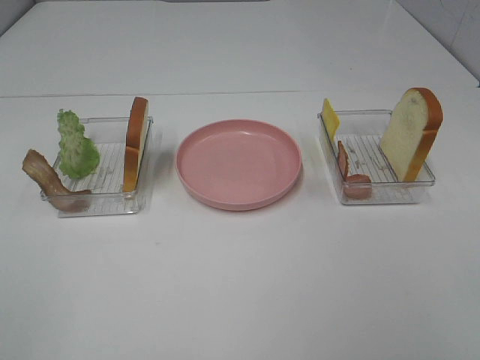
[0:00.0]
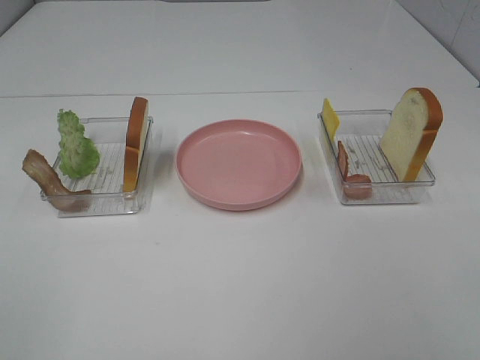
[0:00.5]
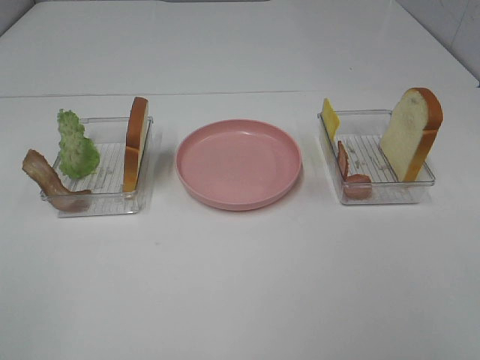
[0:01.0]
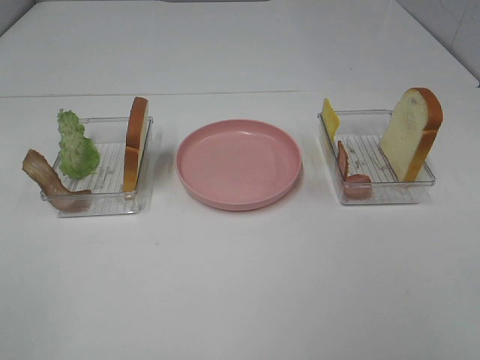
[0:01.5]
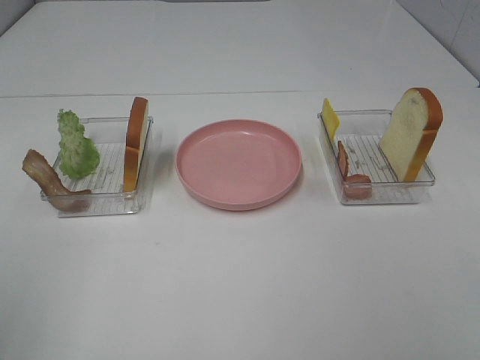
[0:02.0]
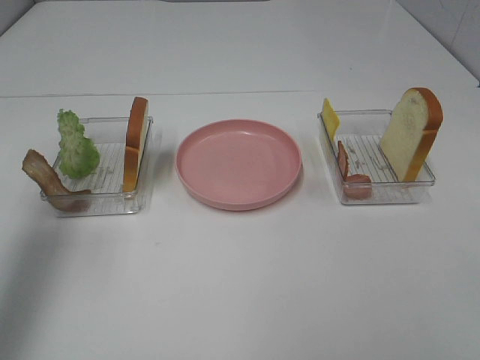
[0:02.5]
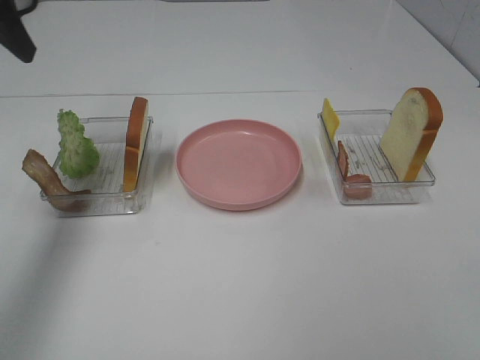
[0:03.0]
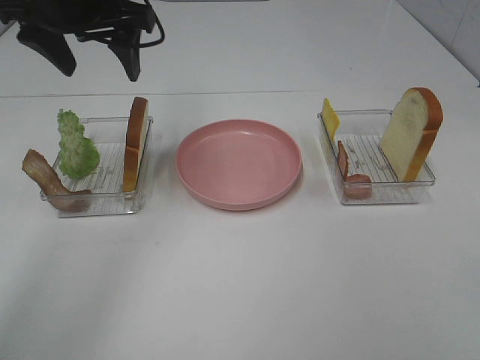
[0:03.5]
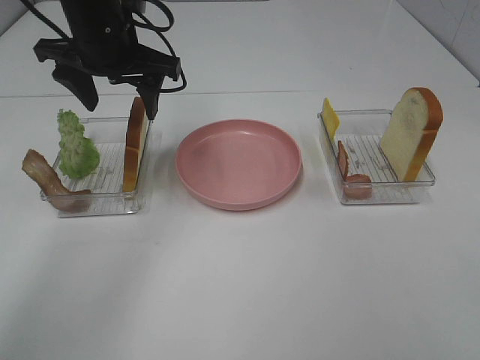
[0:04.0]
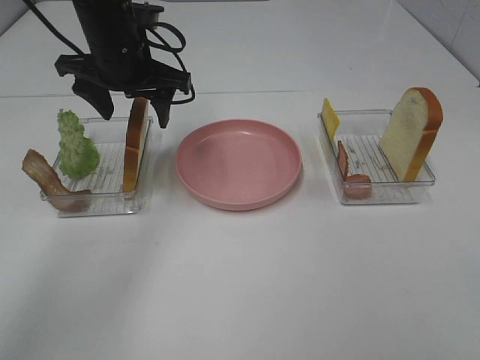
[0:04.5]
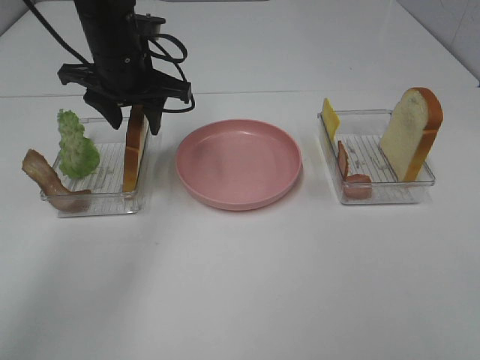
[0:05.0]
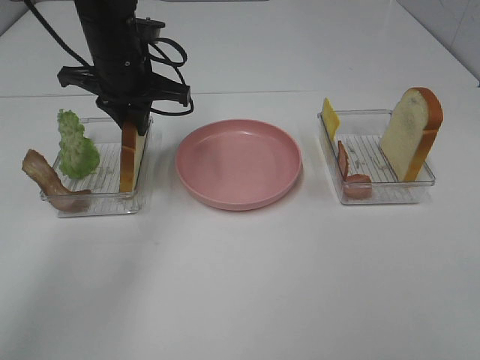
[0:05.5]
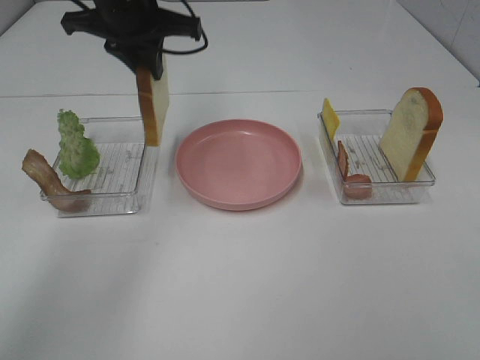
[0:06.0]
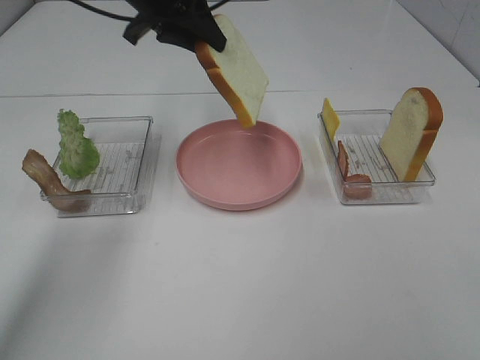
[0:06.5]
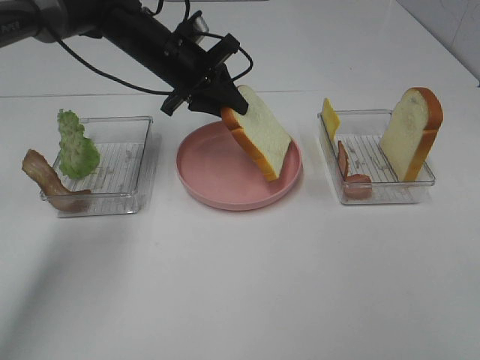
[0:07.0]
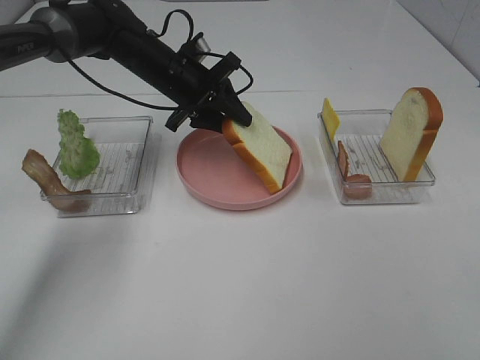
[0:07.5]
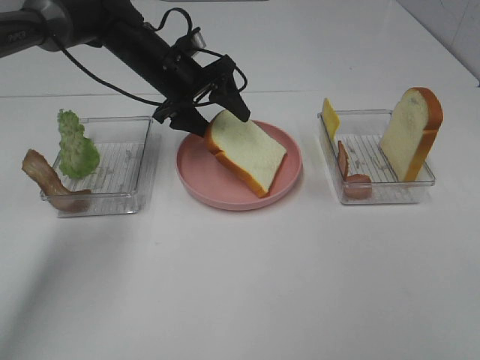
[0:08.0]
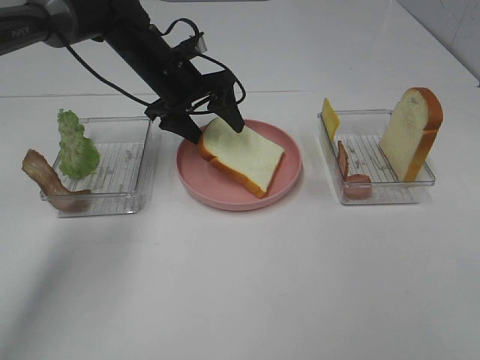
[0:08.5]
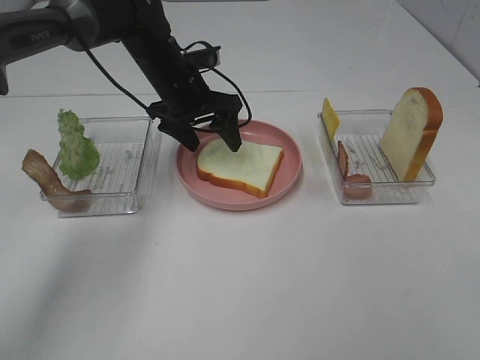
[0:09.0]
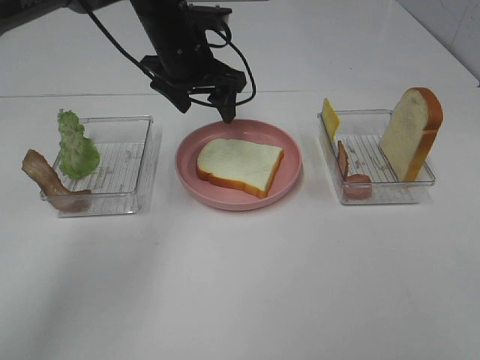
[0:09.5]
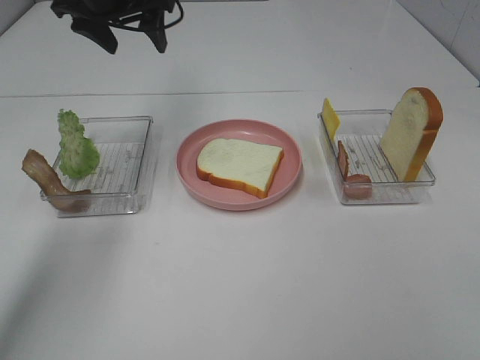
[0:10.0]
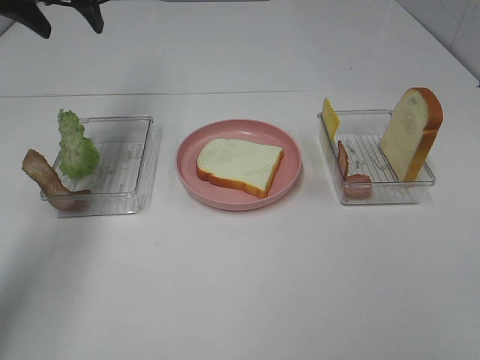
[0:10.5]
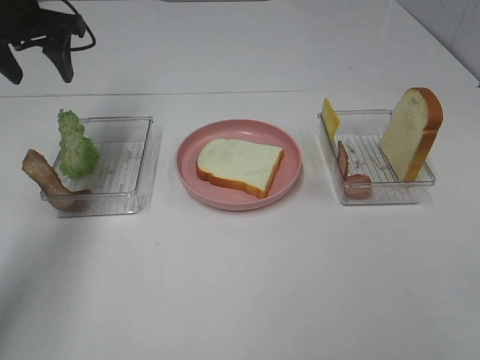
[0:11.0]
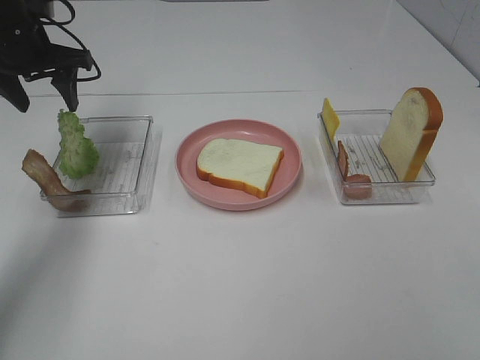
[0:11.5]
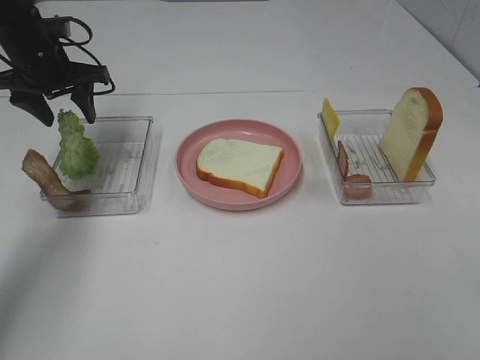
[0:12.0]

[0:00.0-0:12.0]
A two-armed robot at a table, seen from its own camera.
Task of the whole recording: Make sandwiches.
Step, 0:00.0 to 0:05.0: Left hand:grab the bread slice.
Step, 0:05.5 to 0:09.0: Left hand:place the bread slice on the plate.
0:02.0 to 0:04.0: The left gripper travels forward and to the right by about 40 cm.
0:04.0 to 0:06.0: The left gripper closes.
0:06.0 to 0:08.0: The left gripper heads downward, covering roughly 15 cm, and opens its fingers.
0:08.0 to 0:10.0: The left gripper heads upward and to the left, covering roughly 15 cm.
0:10.0 to 0:12.0: The left gripper shifts approximately 15 cm downward and to the left.

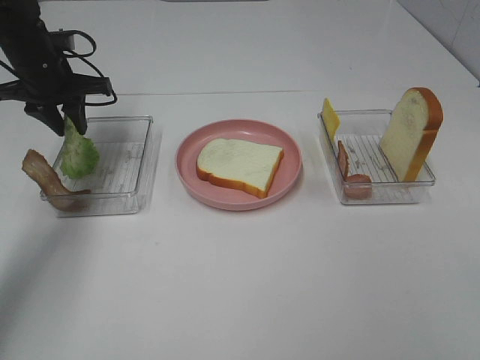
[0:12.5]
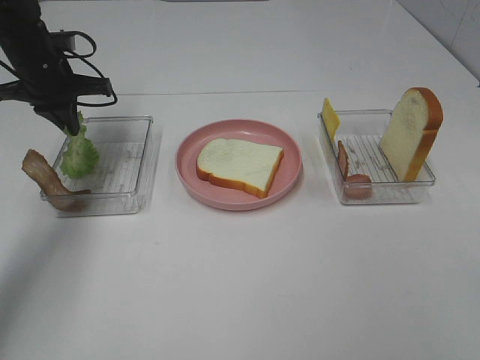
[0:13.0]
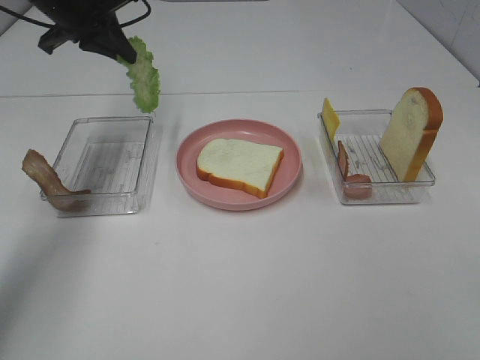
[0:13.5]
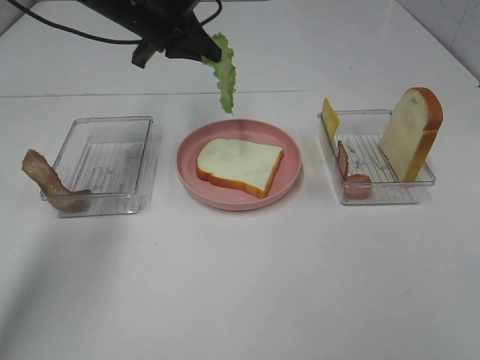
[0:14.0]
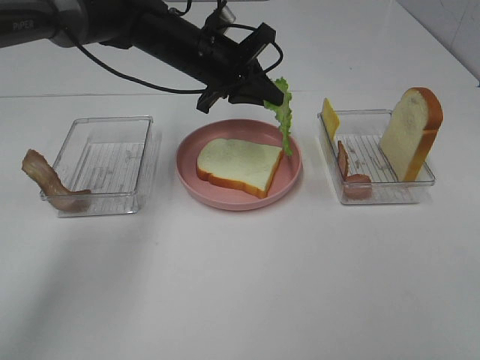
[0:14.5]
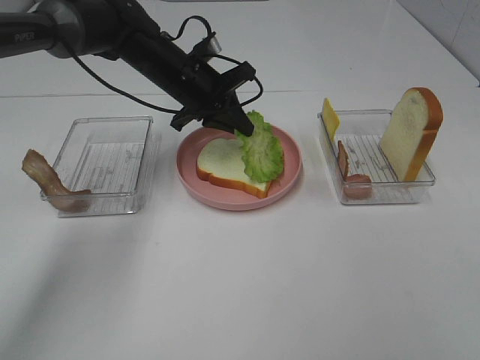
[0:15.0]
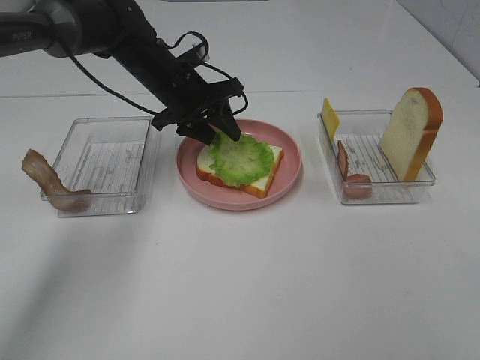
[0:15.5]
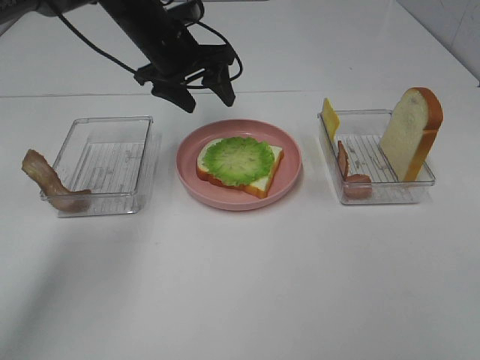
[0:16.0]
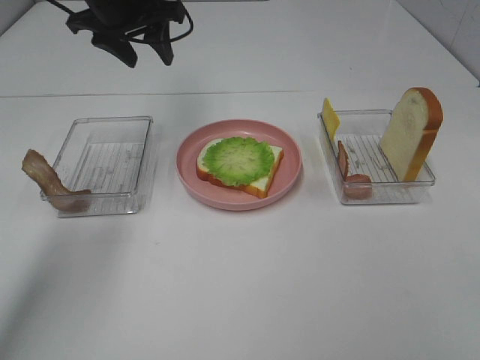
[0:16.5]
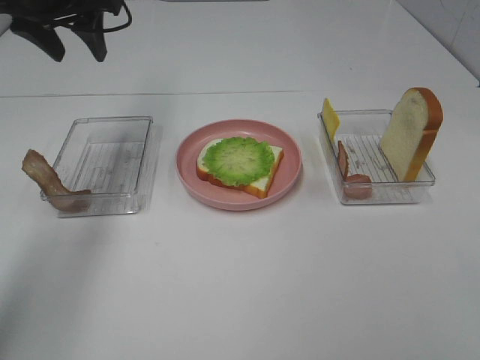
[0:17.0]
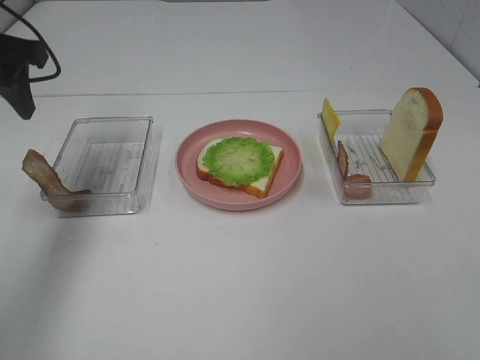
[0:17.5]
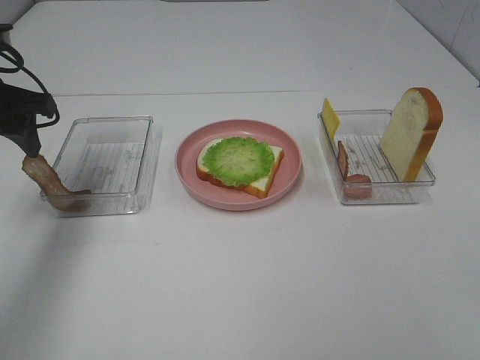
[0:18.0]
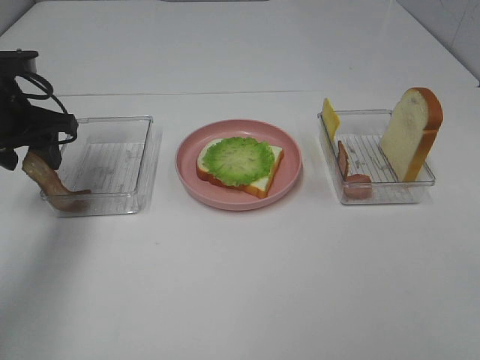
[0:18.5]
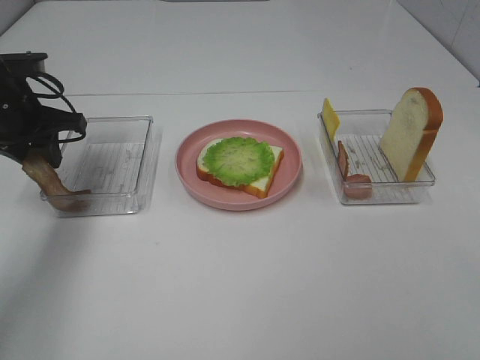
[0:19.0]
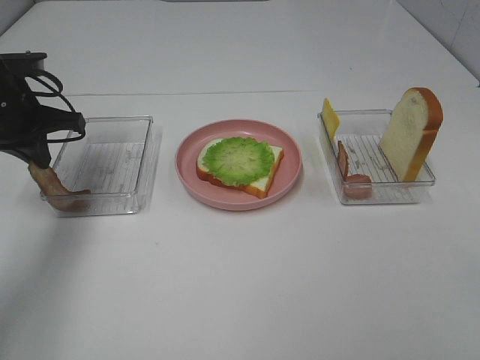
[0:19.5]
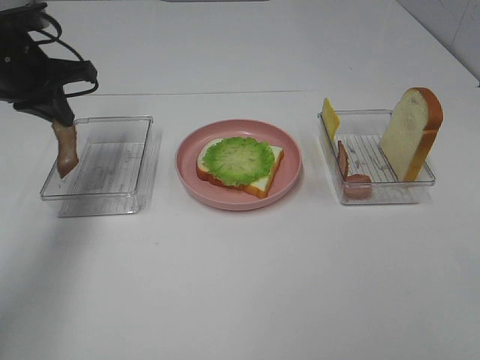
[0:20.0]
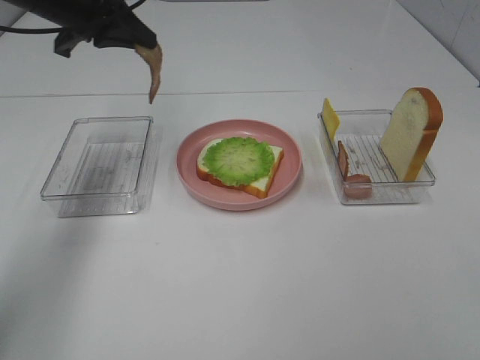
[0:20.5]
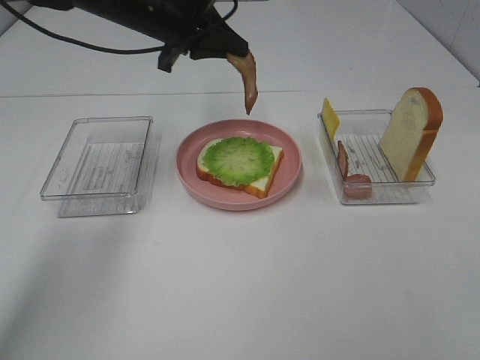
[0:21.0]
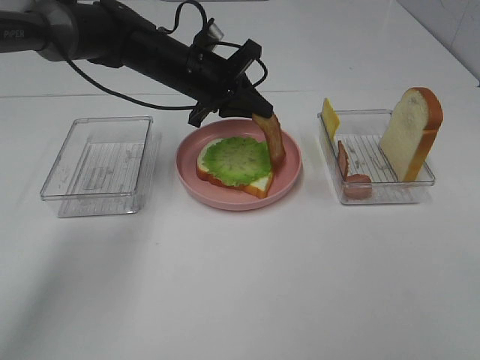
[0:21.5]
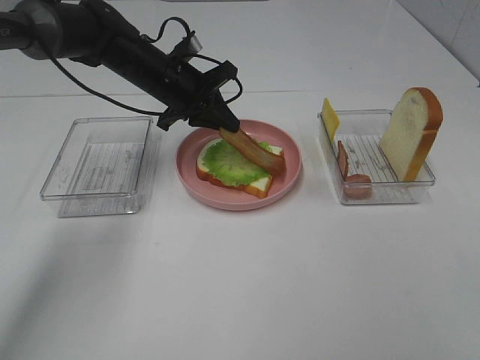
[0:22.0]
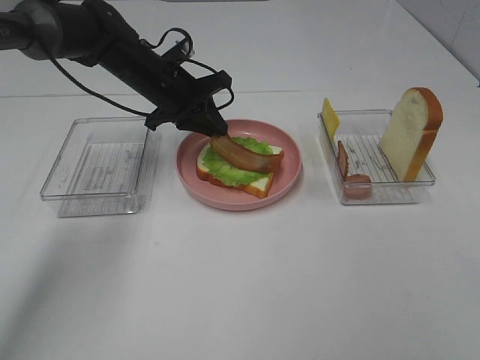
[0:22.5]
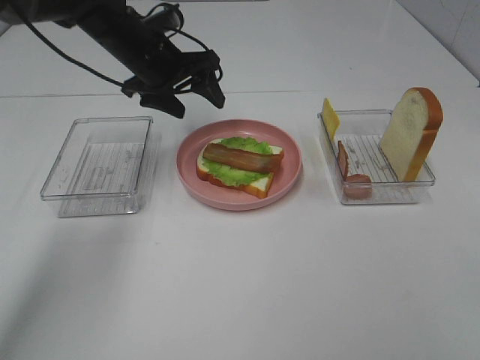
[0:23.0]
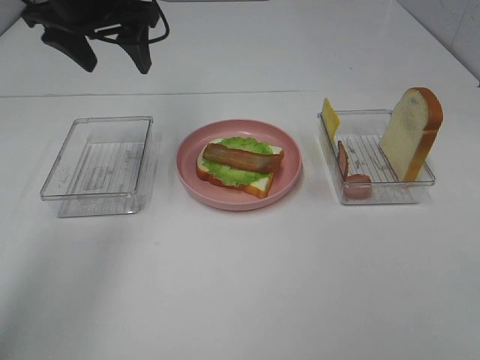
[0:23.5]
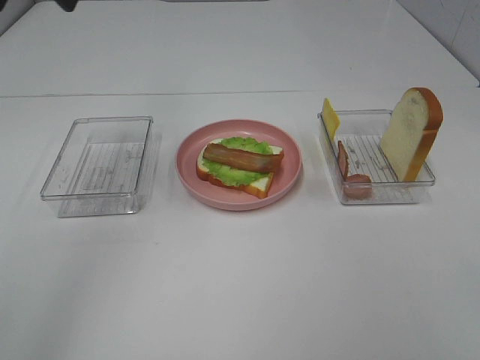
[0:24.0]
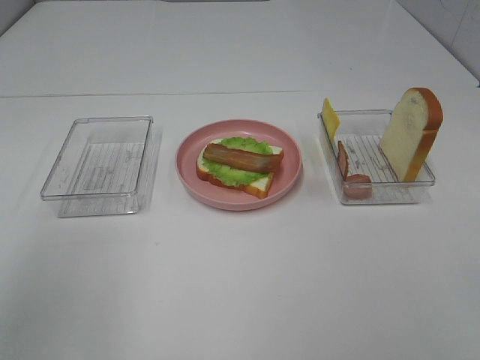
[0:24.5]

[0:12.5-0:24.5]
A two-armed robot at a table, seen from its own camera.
Task of the whole recording: Make sandwiches.
Step, 0:13.0 to 0:15.5: Left hand:place the lettuce slice on the bread slice.
Step, 0:16.0 to 0:19.0: Left hand:grab the bacon.
Step, 0:19.5 to 0:22.5: Left hand:place bacon on lettuce slice.
0:12.5 to 0:14.5: The left gripper is displaced to the right by about 20 cm, and closes up.
0:14.5 to 0:16.5: The left gripper shifts some 15 cm to the left and upward, and opens its fingers.
0:16.5 to 0:18.5: The left gripper travels backward, to the left and downward by about 20 cm.
0:18.5 to 0:20.5: The left gripper travels upward, to the right and forward by some 15 cm, and closes its fingers.
0:20.5 to 0:22.5: The left gripper is displaced downward and to the right by about 15 cm.
0:22.5 to 0:24.5: The left gripper moves backward, upward and to the left, about 40 cm, and opens up.

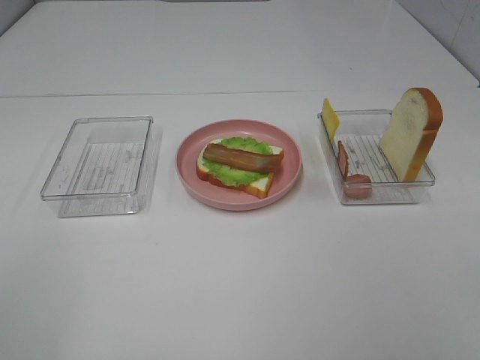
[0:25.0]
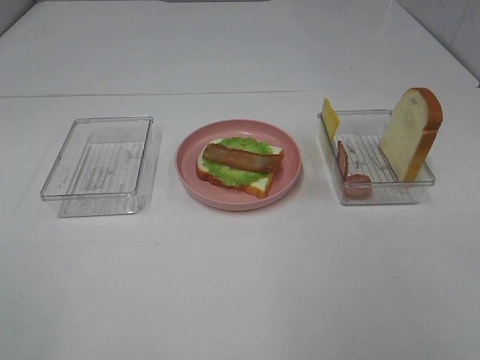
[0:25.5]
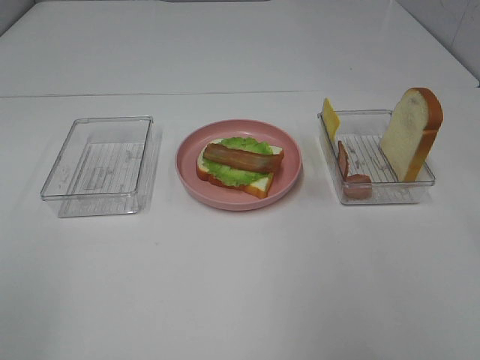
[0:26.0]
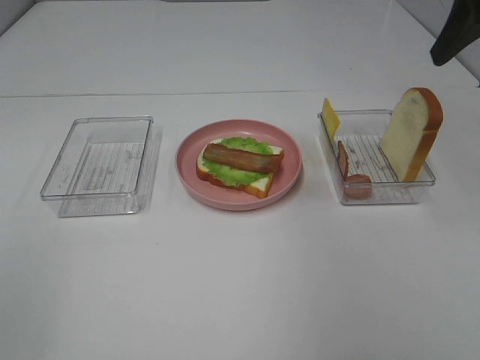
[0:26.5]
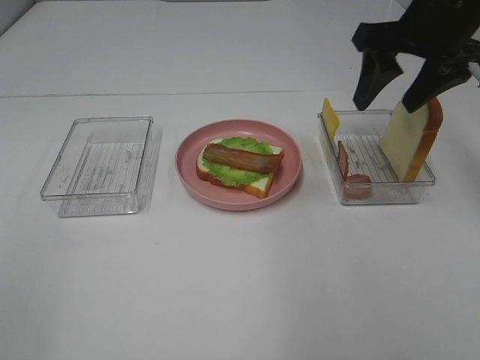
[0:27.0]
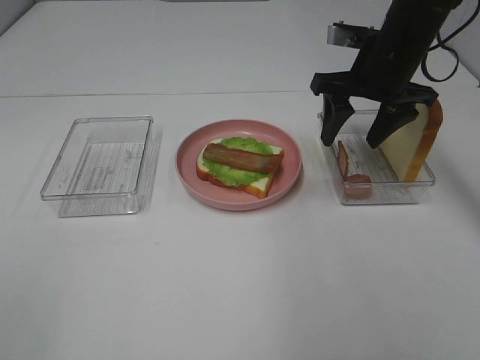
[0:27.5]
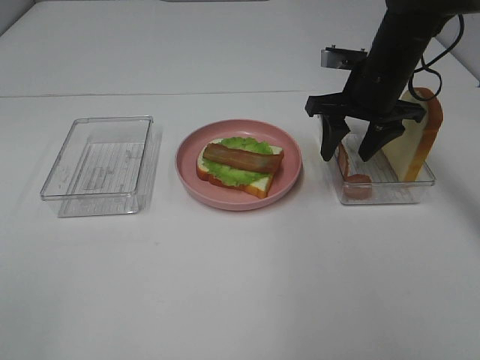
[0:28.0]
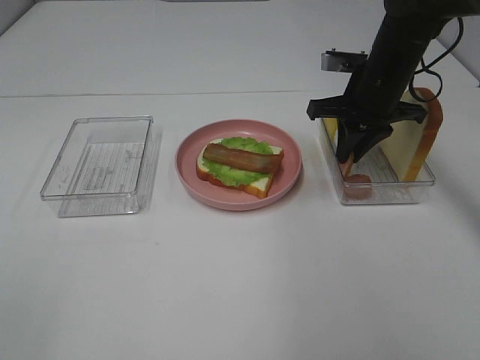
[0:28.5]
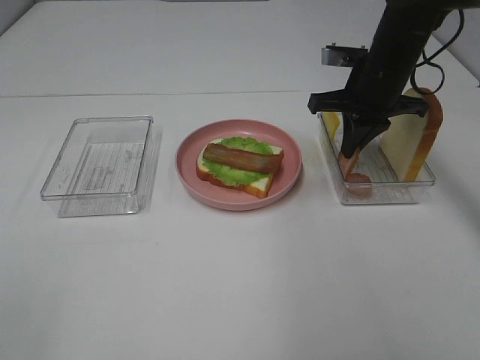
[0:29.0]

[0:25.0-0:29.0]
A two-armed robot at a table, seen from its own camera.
Task of the whole recording: Make sandwiches.
Step, 0:25.0 to 0:28.5: Right hand:grab the bacon.
0:25.0 to 0:27.0: The right gripper shifts approximately 40 cm forward.
0:27.0 to 0:29.0: The right gripper moves downward, roughly 10 cm, and closes.
